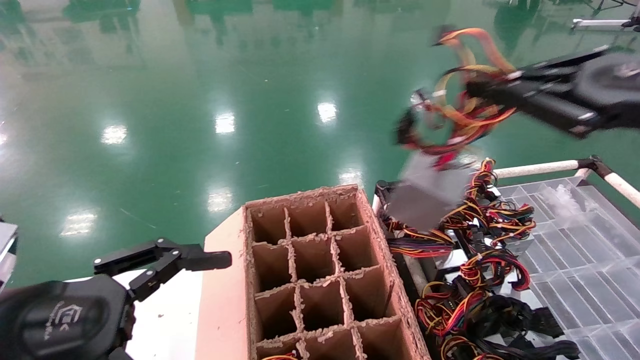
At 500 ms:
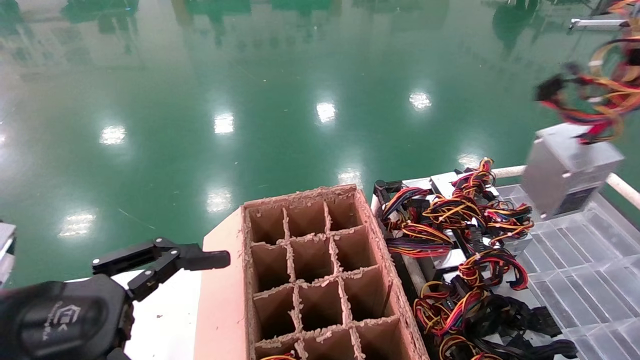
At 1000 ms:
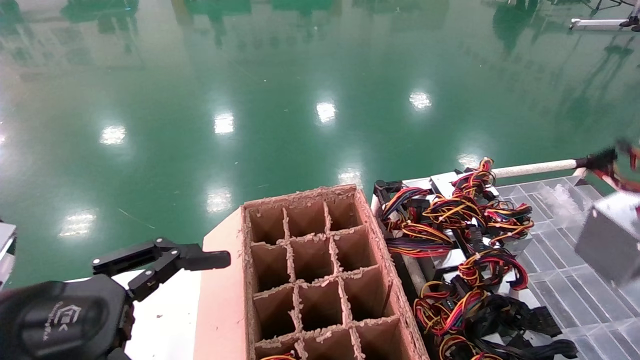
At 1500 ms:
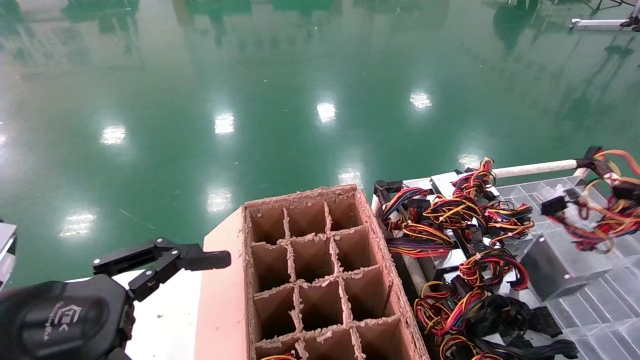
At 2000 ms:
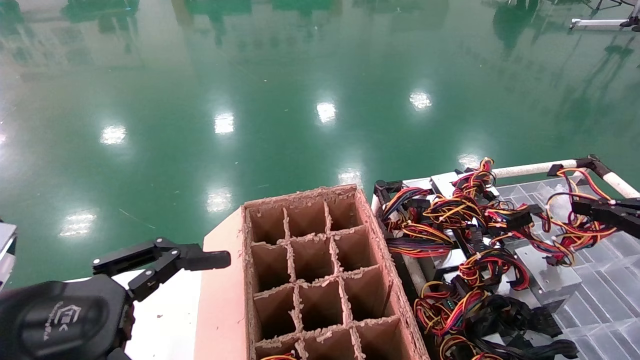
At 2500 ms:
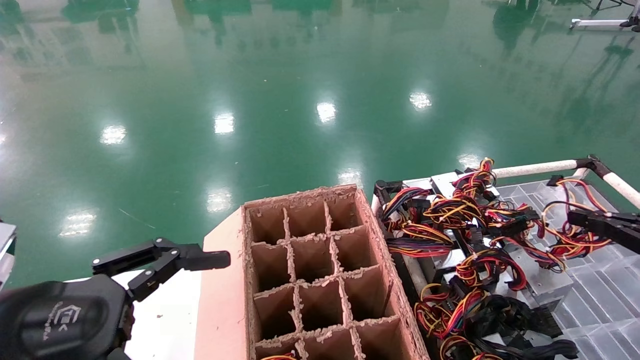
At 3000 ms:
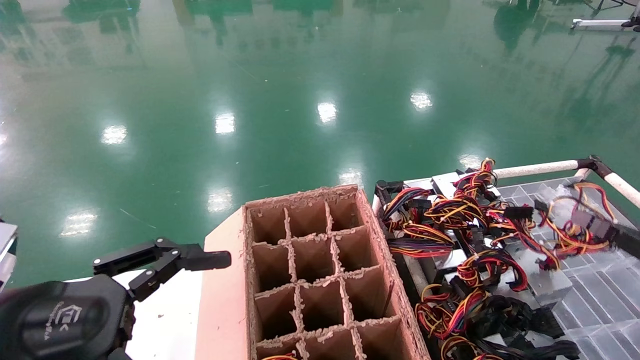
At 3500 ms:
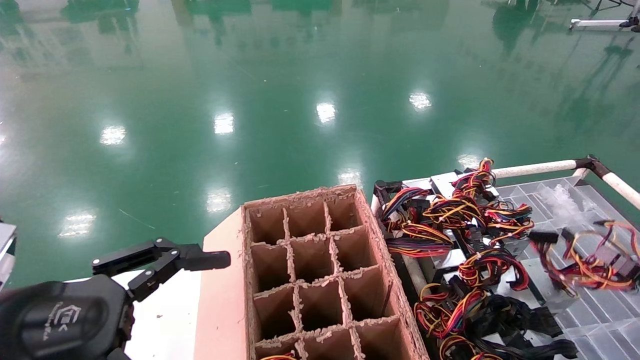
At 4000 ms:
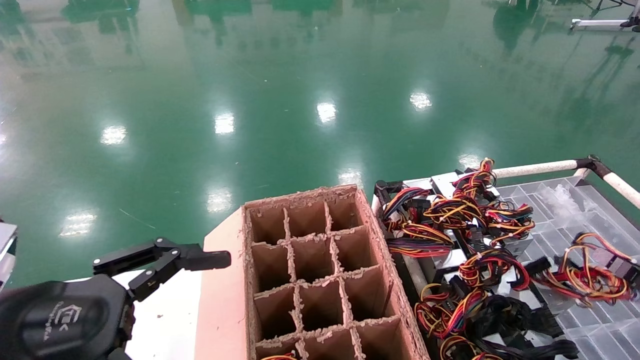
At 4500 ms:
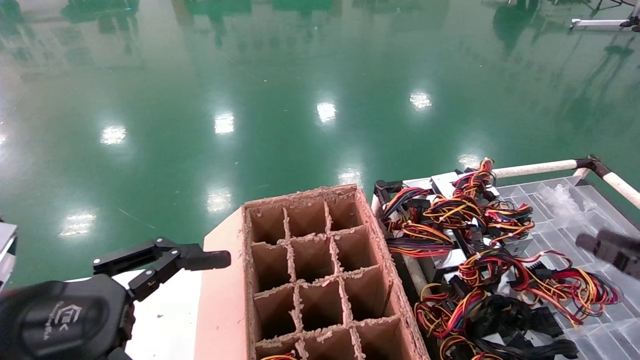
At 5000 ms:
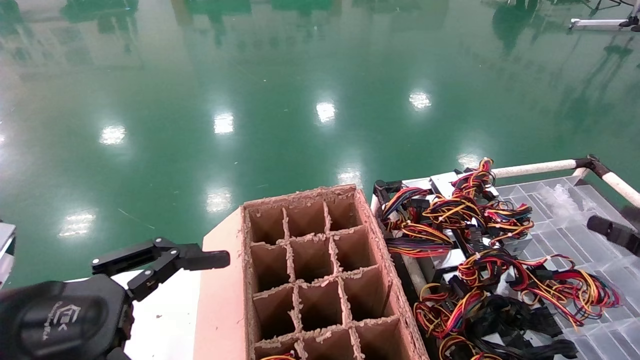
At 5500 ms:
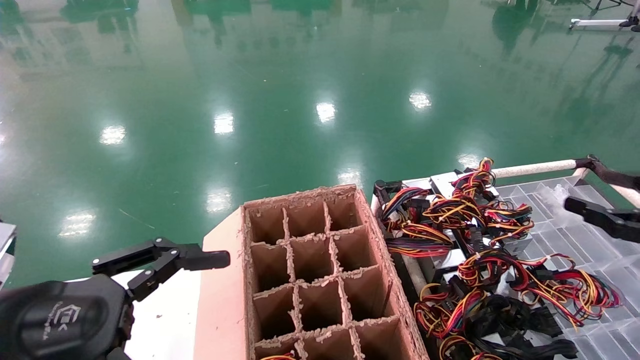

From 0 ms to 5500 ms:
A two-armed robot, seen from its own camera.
Step, from 0 ms to 4500 ms: Place the power supply on the operating table.
From 0 ms to 2000 ms: The right gripper moves to the right and downward, about 20 cm.
From 2000 ms to 3500 ms: The right gripper is displaced downward by roughly 15 cm.
From 3500 ms to 5500 ms: The right gripper heads upward, covering roughly 15 cm, and opens up.
